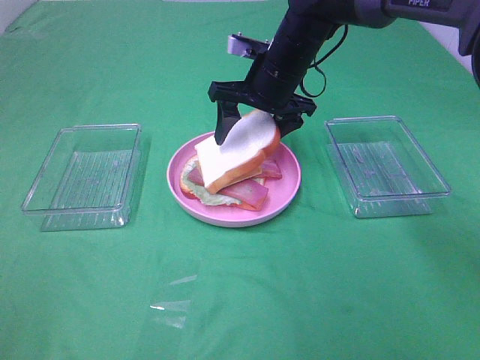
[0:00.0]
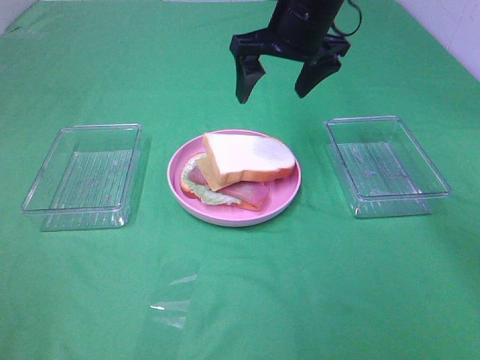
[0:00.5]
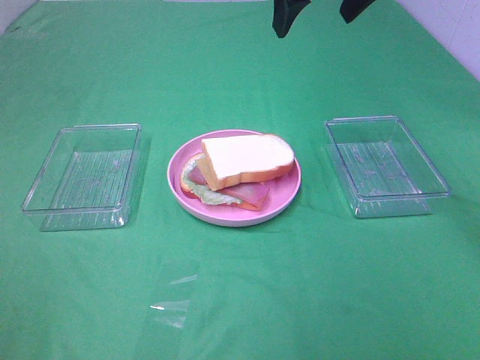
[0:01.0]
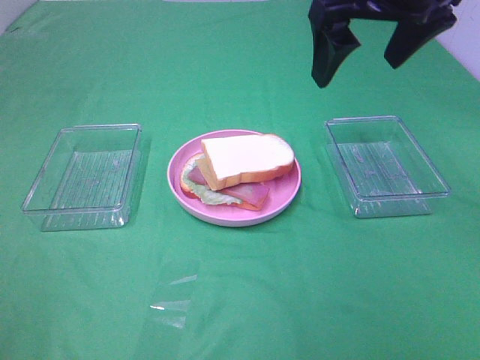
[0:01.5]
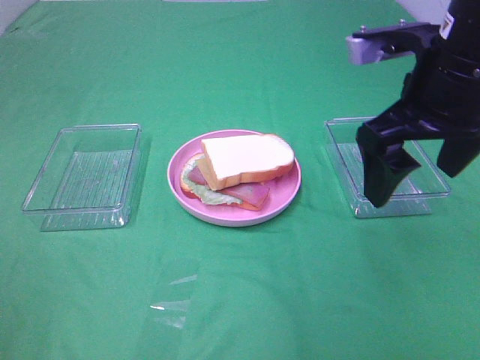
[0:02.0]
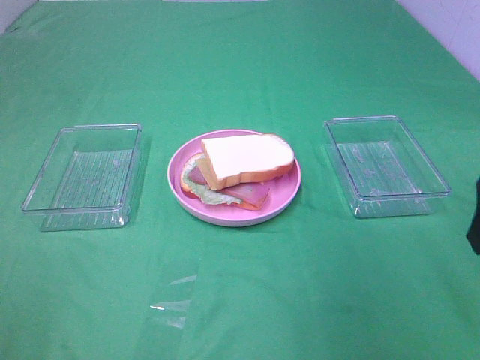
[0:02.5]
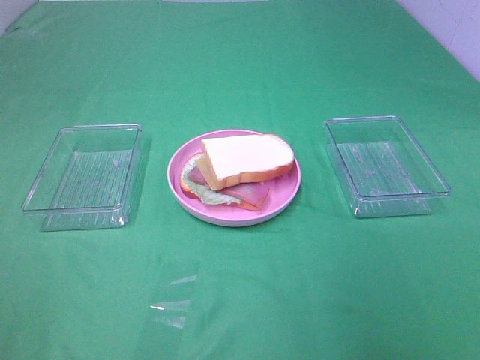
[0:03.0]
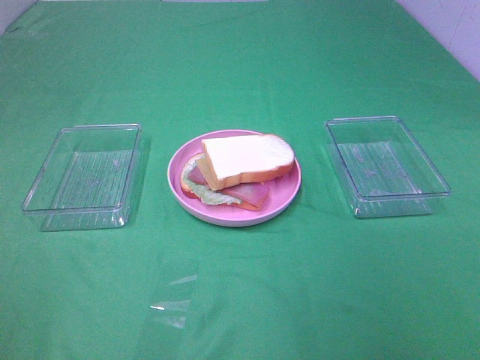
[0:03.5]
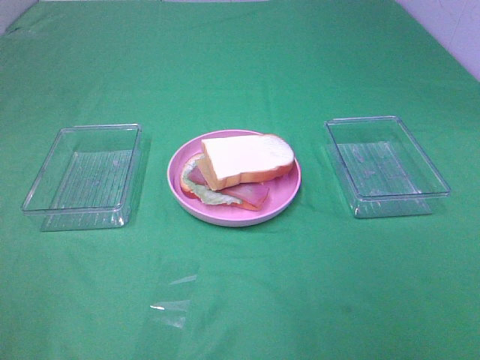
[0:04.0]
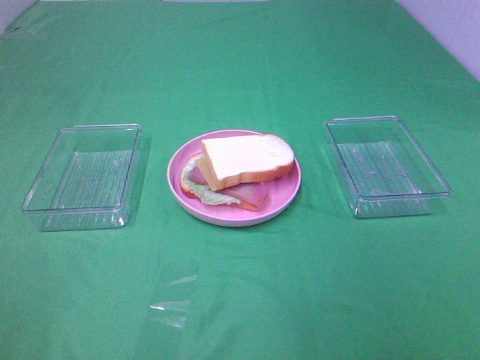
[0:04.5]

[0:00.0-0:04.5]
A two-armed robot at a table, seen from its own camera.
Task of the whole recording: Make sandwiches.
0:00.0 to 0:02.0: The right gripper travels backward, to the right and upward by some 25 cm.
0:02.0 to 0:04.5: The right gripper travels backward and to the right by roughly 30 cm.

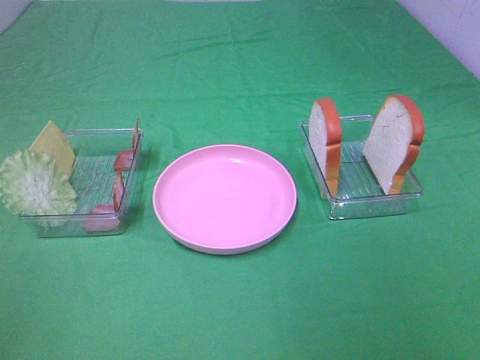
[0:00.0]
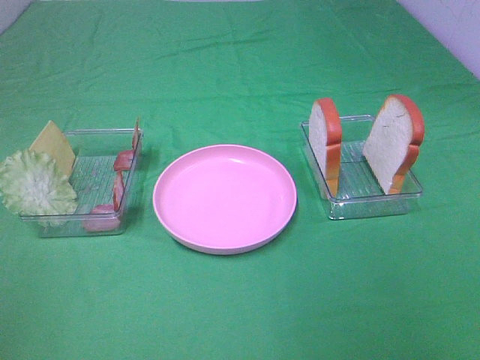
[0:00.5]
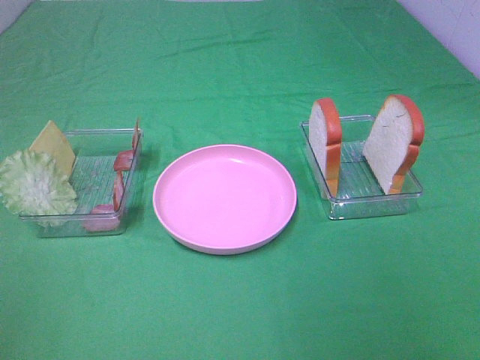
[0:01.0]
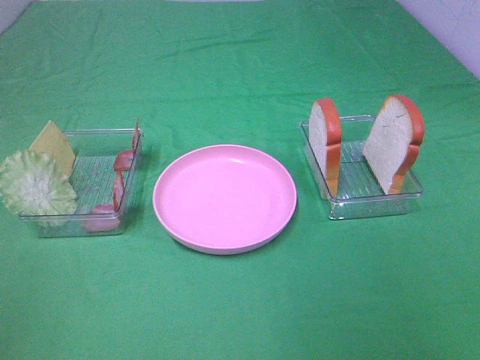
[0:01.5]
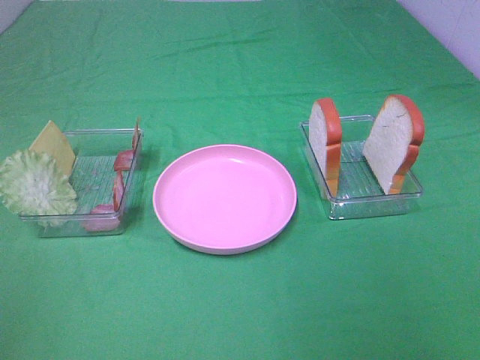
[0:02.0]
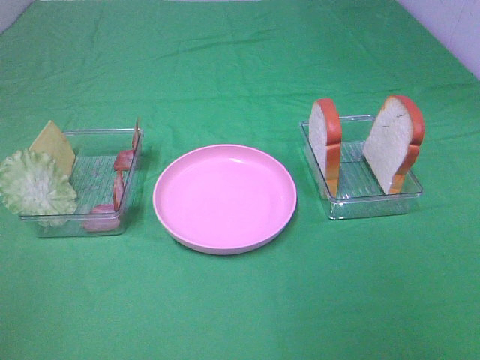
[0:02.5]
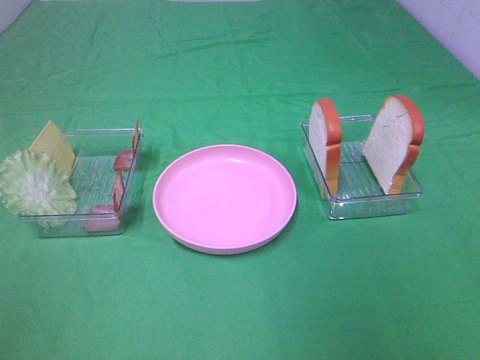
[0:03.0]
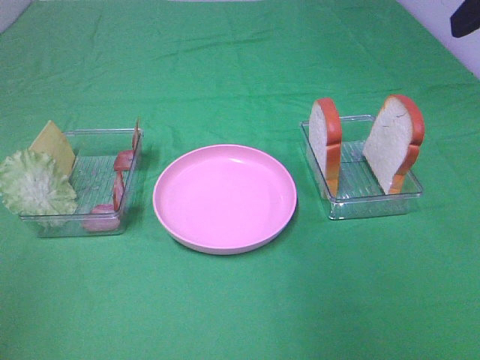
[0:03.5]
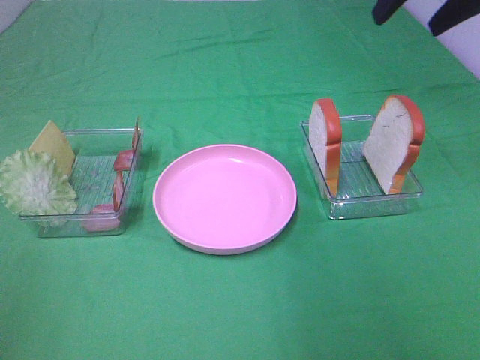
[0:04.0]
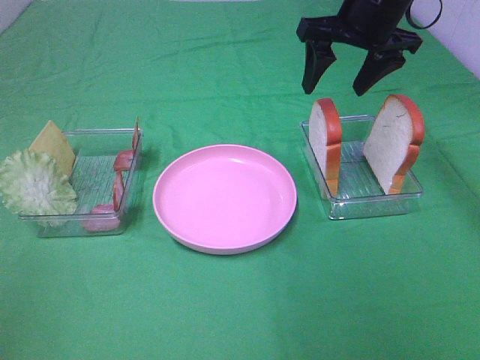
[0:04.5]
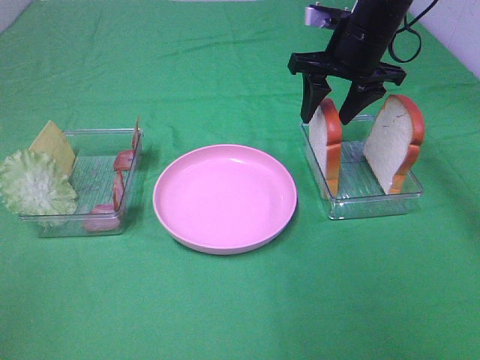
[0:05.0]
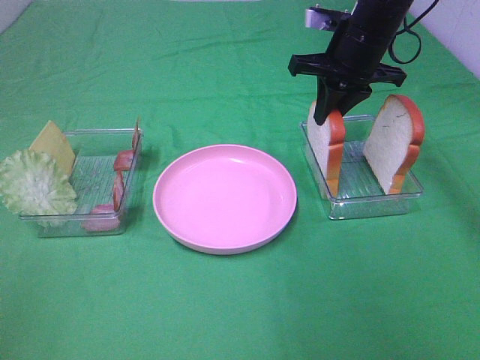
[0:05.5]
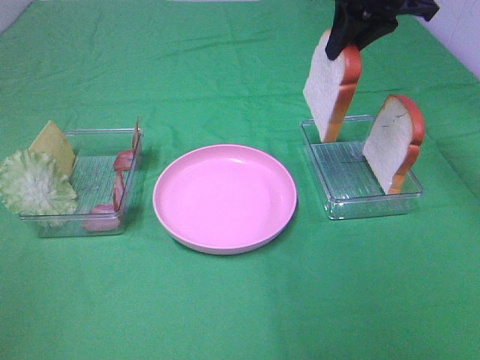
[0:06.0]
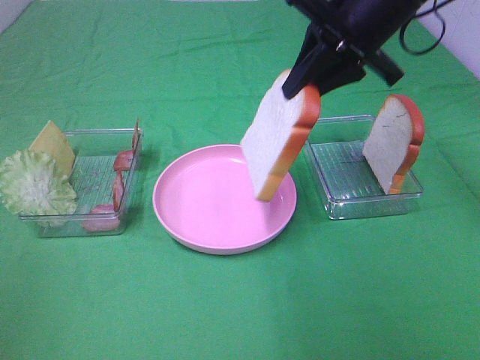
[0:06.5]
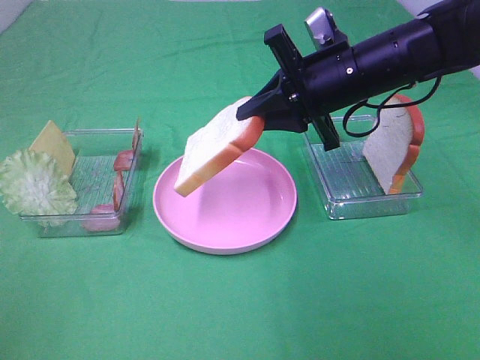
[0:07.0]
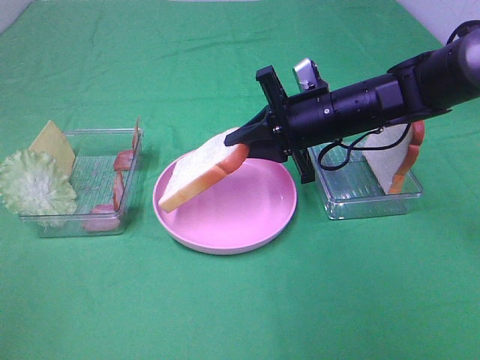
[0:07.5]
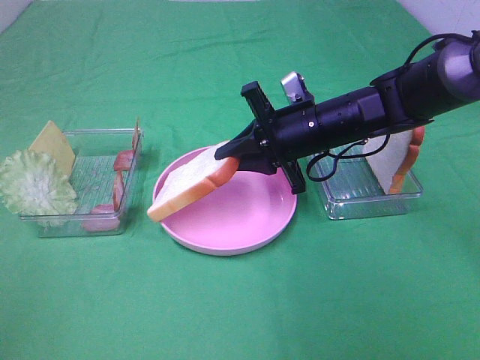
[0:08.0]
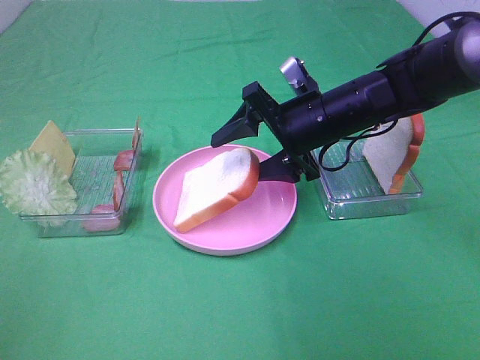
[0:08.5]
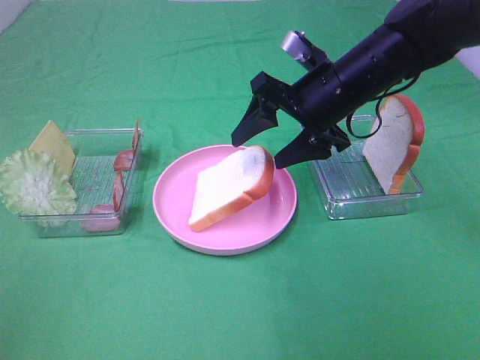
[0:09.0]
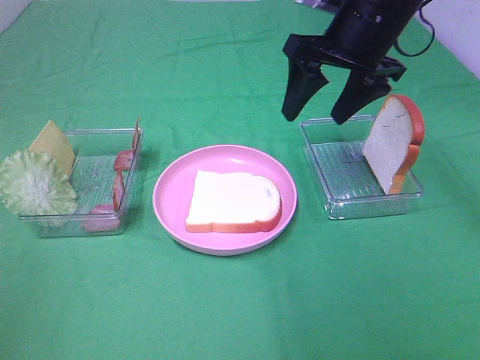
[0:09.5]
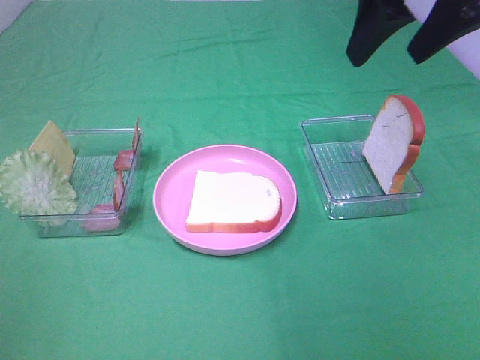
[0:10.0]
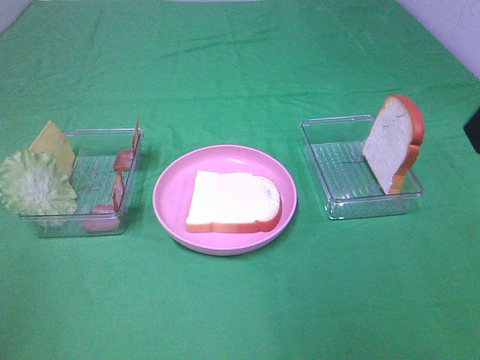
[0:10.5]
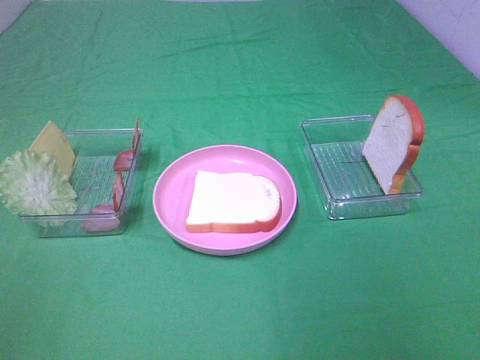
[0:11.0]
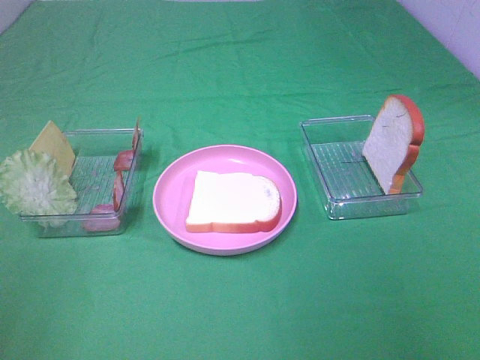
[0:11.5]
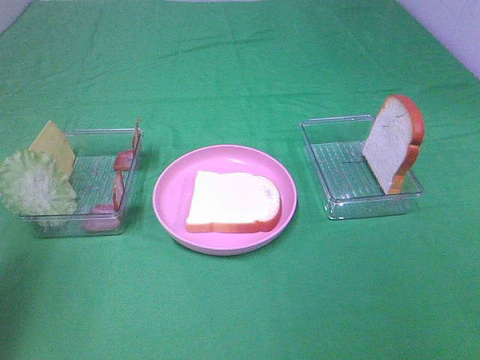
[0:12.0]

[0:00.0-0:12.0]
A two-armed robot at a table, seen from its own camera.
Task of the whole recording: Make sandwiches.
Step, 0:00.0 to 0:05.0: Right hand:grab the bread slice.
Step, 0:05.5 to 0:09.0: Right hand:place the bread slice on the plate.
0:00.0 to 0:02.0: The two grippers keep their place.
0:02.0 to 0:04.0: The right gripper heads forward, covering about 40 cm.
0:04.0 to 0:06.0: The right gripper heads to the left, covering some 5 cm, moves some 15 cm downward and comes back, and closes.
0:06.0 to 0:08.0: The right gripper travels downward by some 20 cm.
0:08.0 to 0:10.0: The right gripper goes about 25 cm upward, and opens.
0:10.0 to 0:12.0: The left gripper travels forward by roughly 15 cm, while the right gripper travels backward by about 30 cm.

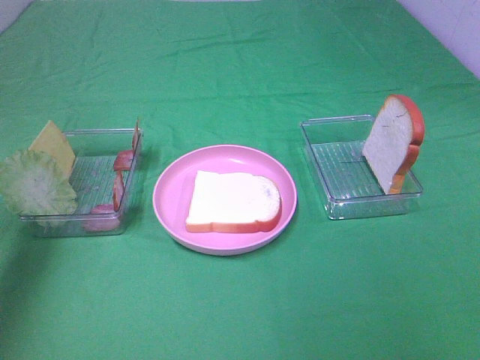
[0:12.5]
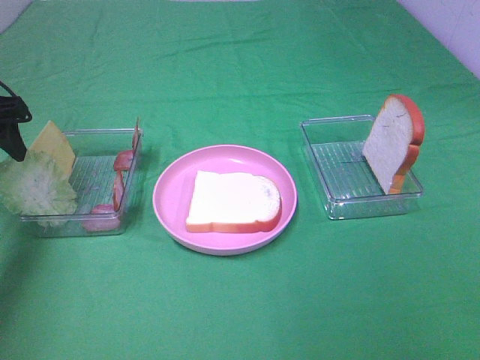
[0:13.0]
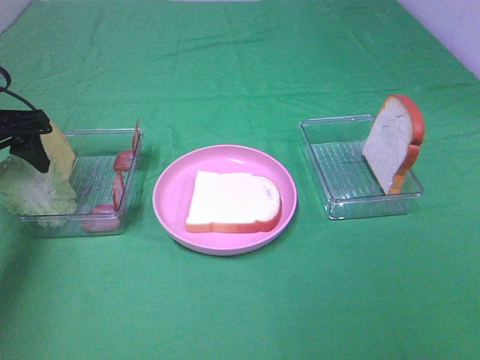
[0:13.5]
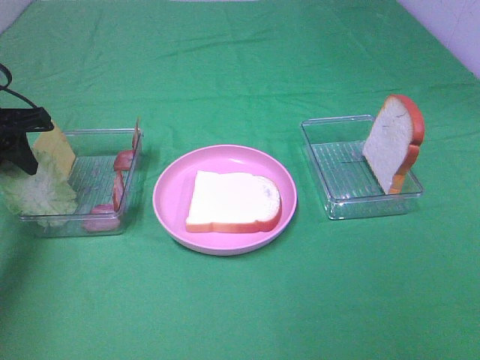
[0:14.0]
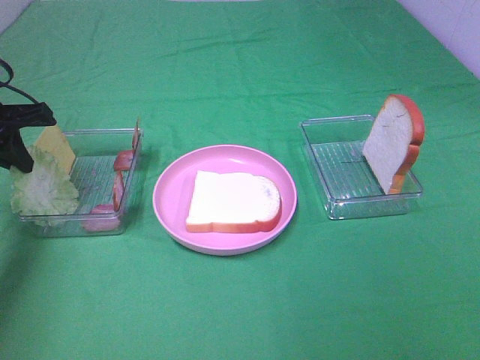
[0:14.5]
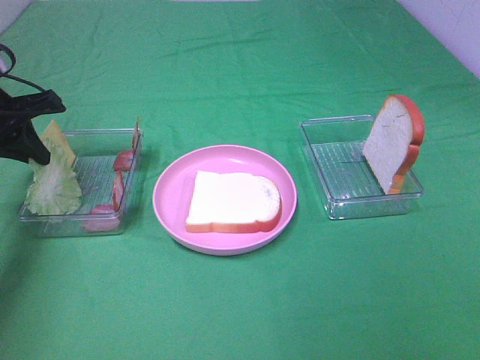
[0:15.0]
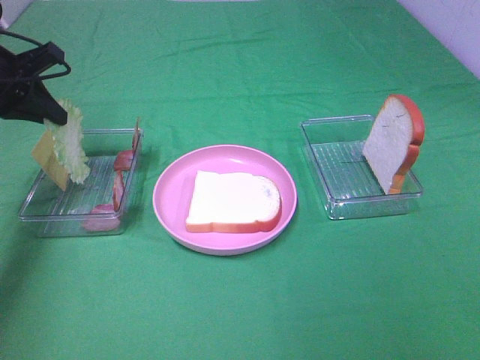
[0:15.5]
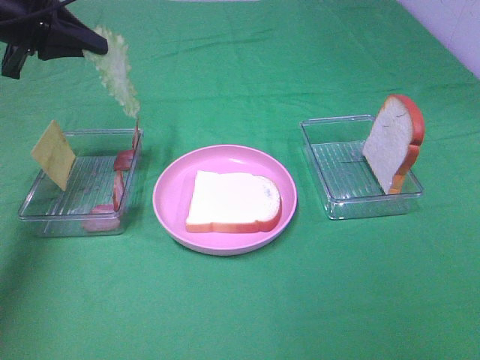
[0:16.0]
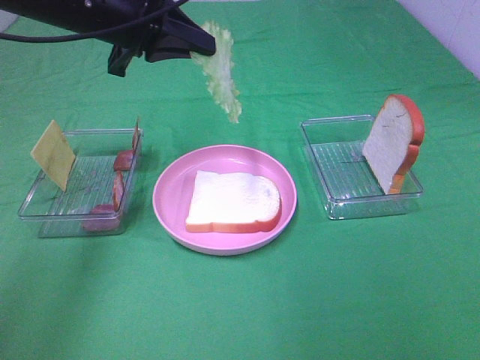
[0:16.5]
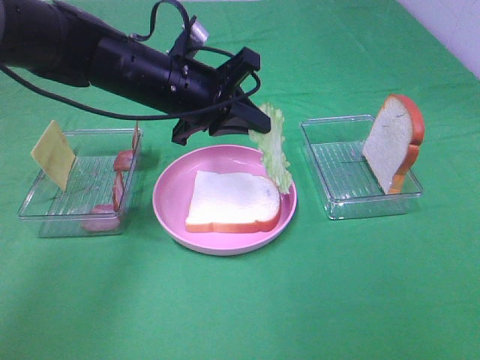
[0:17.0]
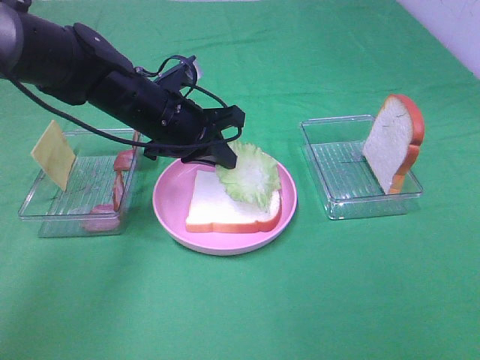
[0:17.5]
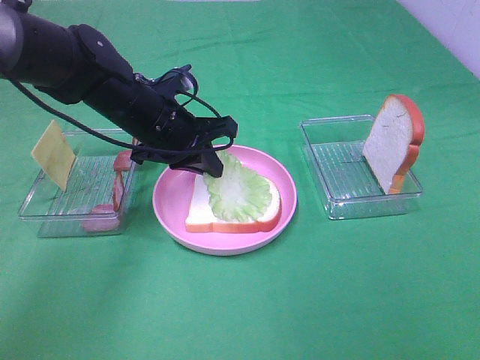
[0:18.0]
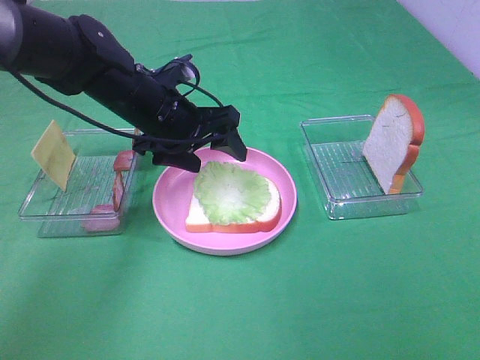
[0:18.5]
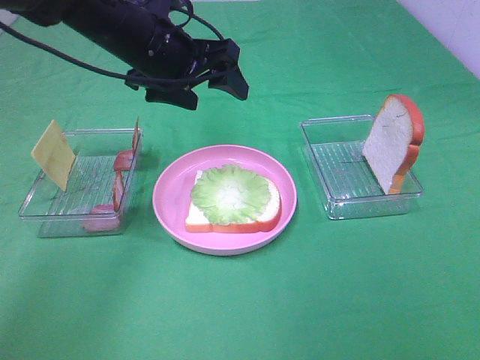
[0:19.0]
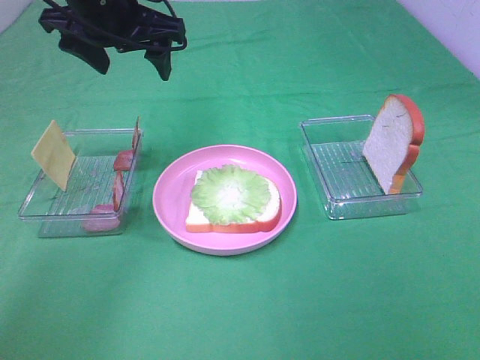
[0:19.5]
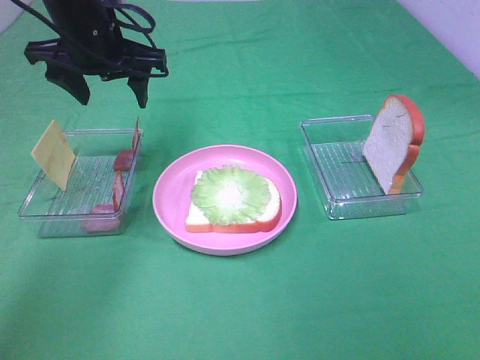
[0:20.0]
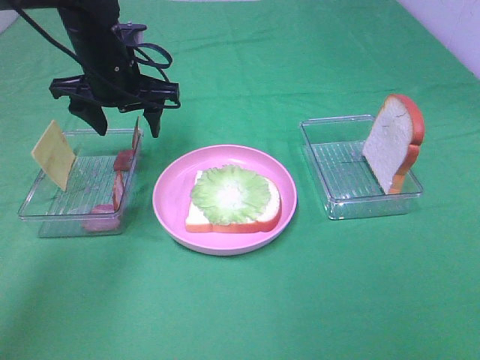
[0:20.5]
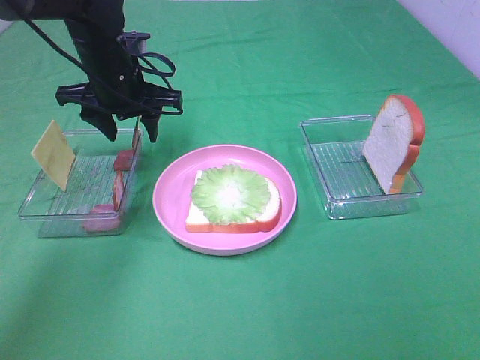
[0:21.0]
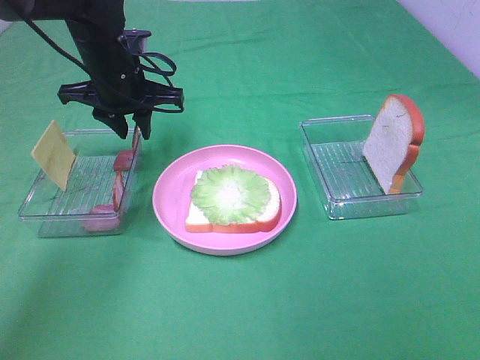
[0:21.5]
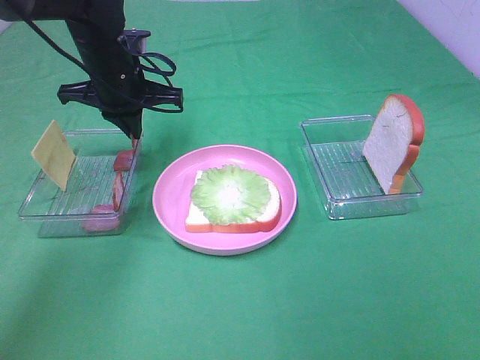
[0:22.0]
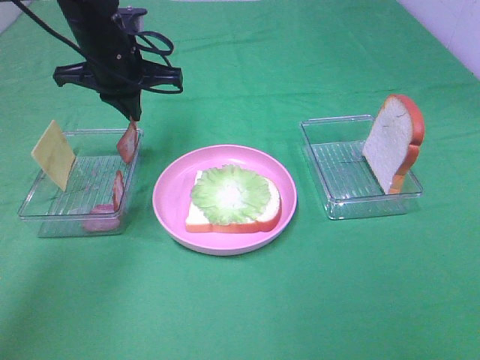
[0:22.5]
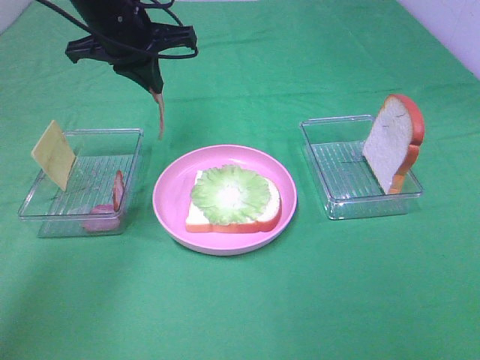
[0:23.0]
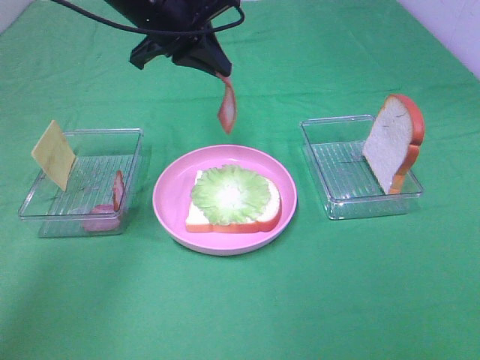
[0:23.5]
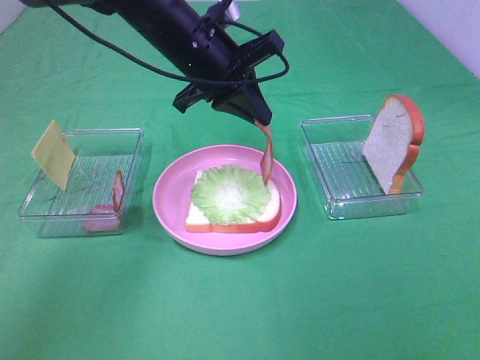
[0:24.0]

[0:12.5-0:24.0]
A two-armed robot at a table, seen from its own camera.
Task of the whole recording: Make sandwiches.
Step, 0:12.5 to 0:14.5: Left hand:grab the lettuce slice.
Step, 0:15.0 to 0:18.5: Left hand:place the lettuce slice on the bread slice.
Step, 0:19.0 to 0:22.0: Left hand:grab the bacon.
0:12.5 to 0:14.5: The left gripper heads downward and forward, covering about 10 cm, and closes up.
0:14.5 to 0:16.5: The left gripper shifts about 20 cm to the right and upward.
0:16.5 to 0:18.5: The left gripper travels downward by roughly 10 cm, and opens up.
0:18.5 to 0:20.0: The left gripper travels upward and to the left by about 10 cm.
0:20.0 to 0:22.0: The left gripper goes about 5 cm downward, and closes up.
0:22.0 to 0:24.0: The left gripper heads to the right, covering approximately 10 cm.
